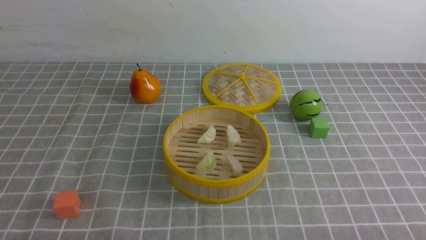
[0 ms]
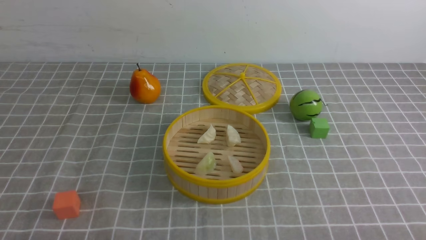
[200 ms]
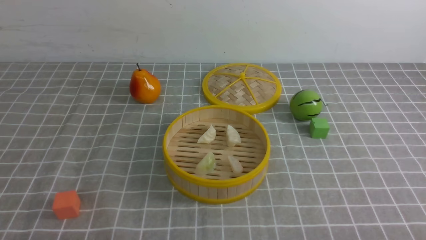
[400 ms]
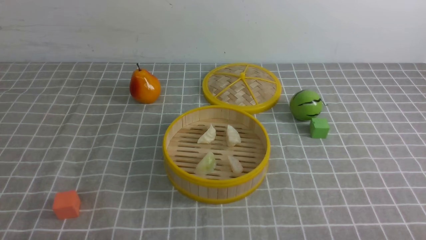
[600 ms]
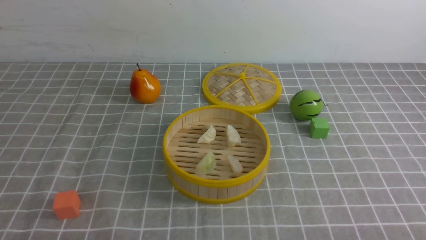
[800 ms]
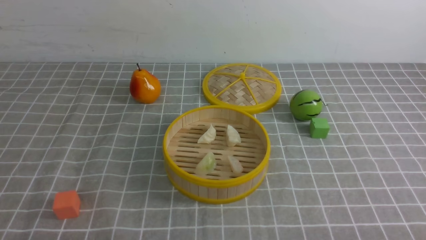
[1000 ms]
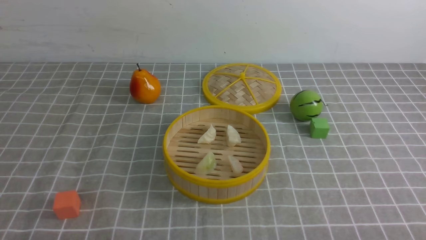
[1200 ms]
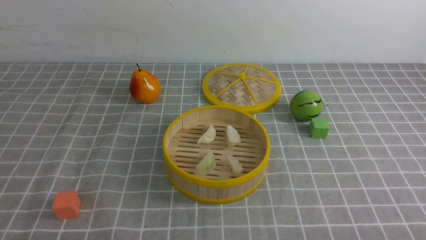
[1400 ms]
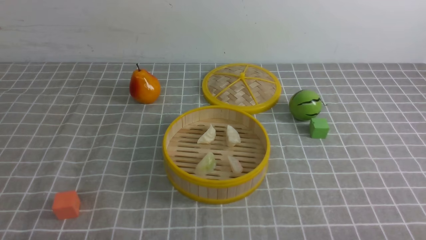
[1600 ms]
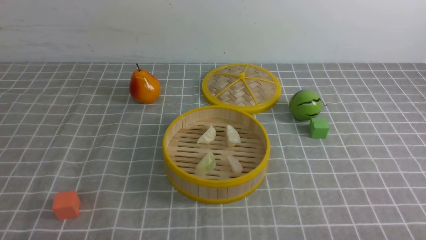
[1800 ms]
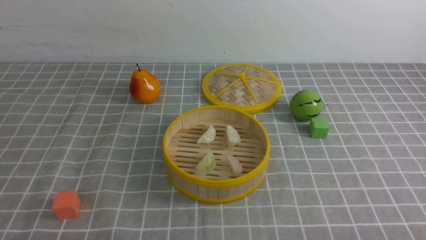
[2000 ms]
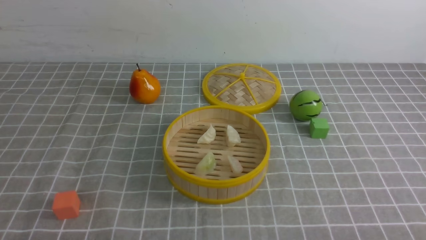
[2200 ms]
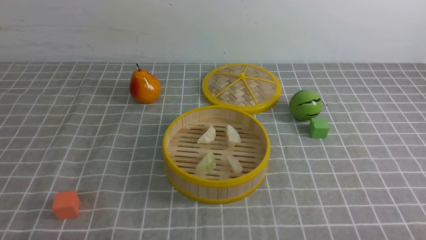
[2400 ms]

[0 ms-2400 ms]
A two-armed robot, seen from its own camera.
Task of the whole recording: put the dumplings into the steamer on the table with the grey tablecloth.
0 ms to 2400 ms: The two grippers keep their place.

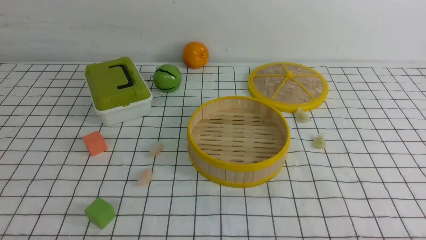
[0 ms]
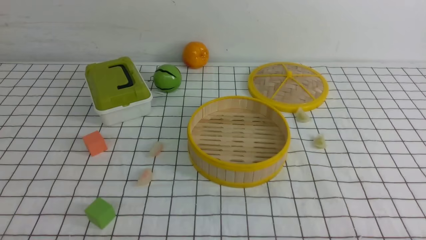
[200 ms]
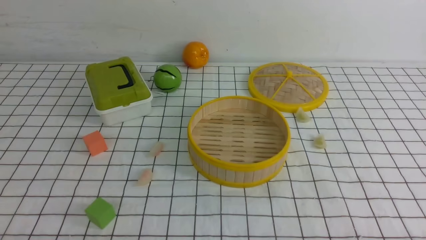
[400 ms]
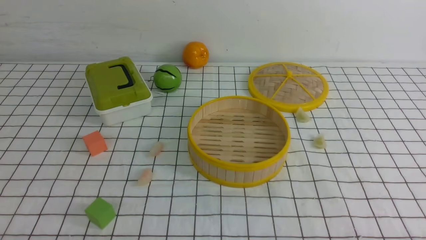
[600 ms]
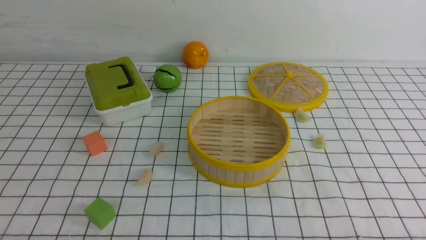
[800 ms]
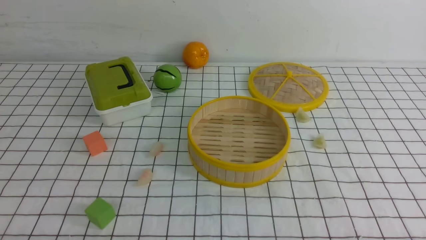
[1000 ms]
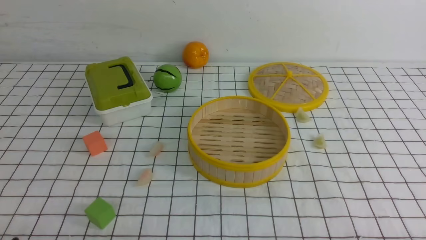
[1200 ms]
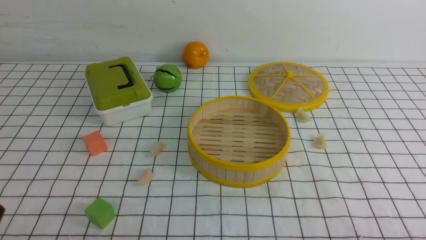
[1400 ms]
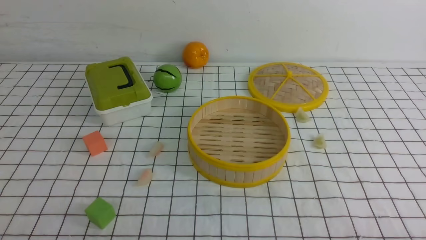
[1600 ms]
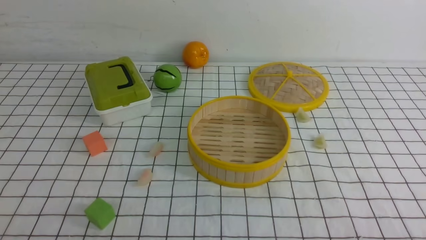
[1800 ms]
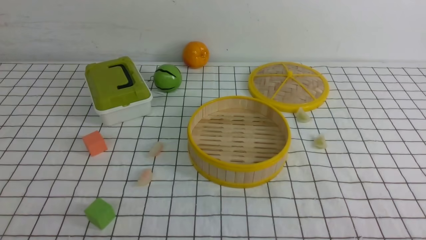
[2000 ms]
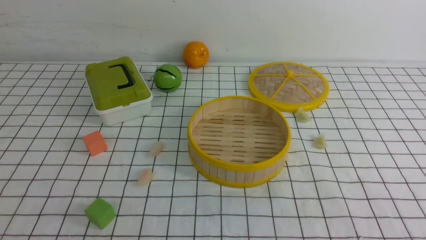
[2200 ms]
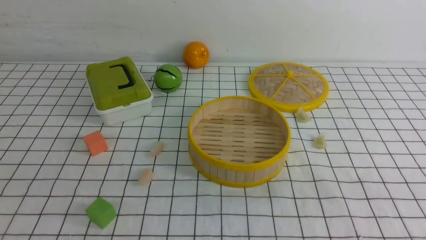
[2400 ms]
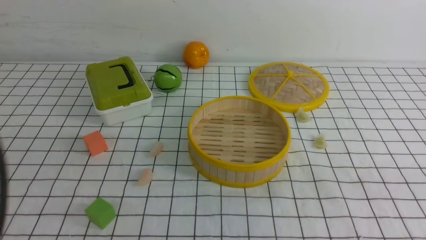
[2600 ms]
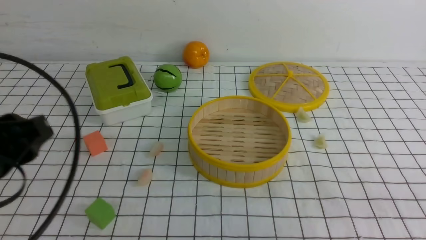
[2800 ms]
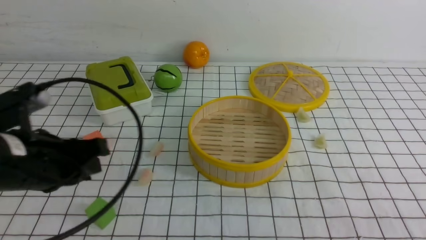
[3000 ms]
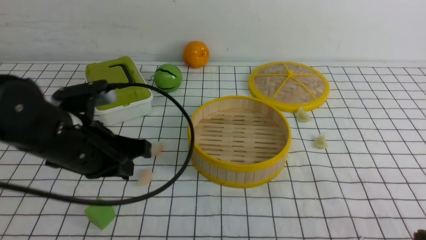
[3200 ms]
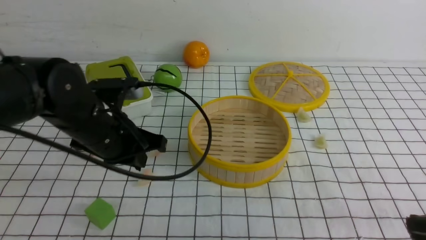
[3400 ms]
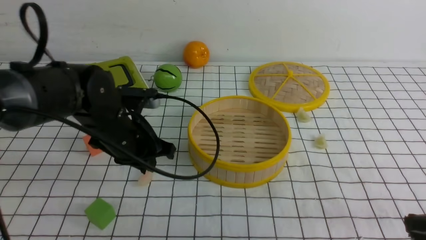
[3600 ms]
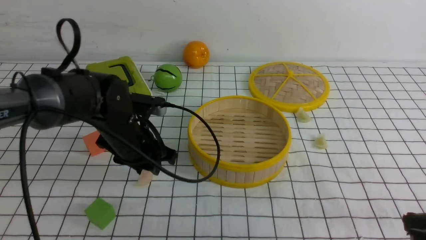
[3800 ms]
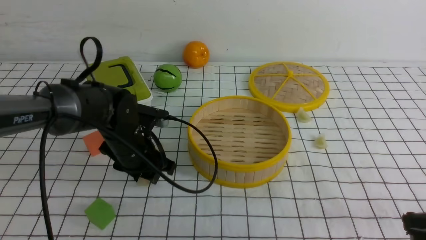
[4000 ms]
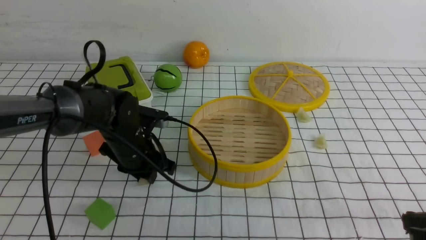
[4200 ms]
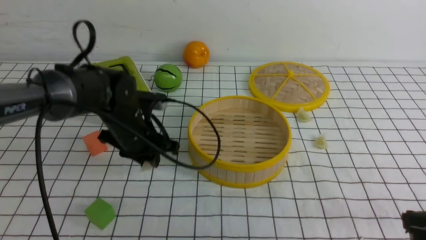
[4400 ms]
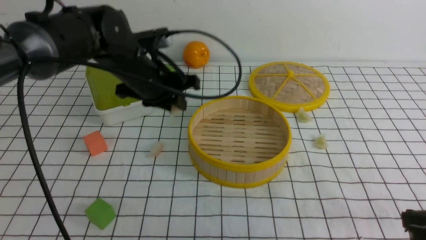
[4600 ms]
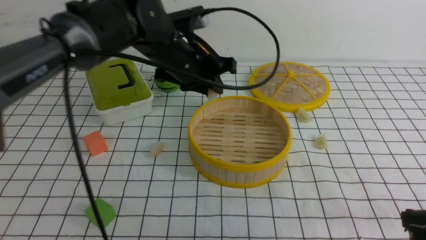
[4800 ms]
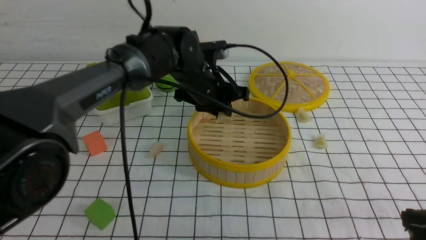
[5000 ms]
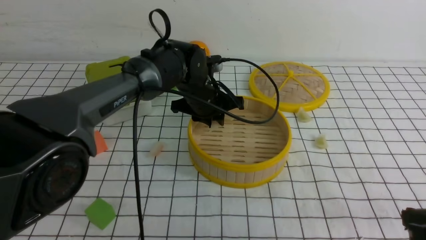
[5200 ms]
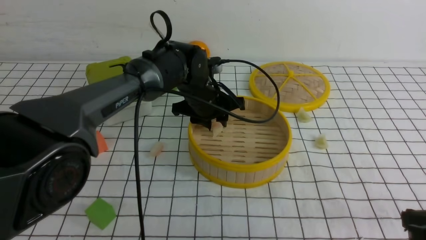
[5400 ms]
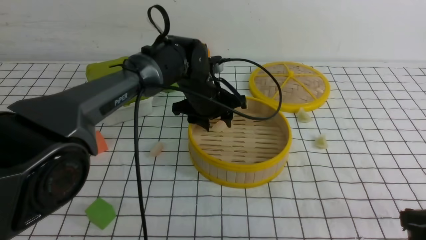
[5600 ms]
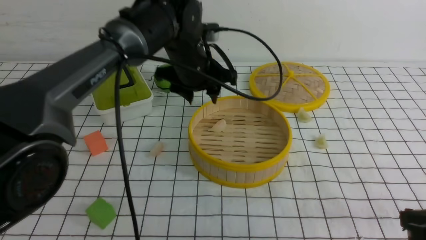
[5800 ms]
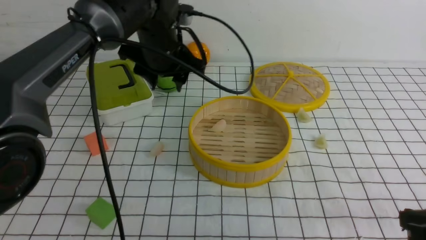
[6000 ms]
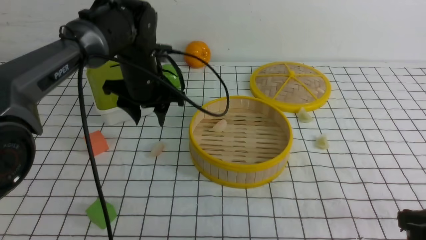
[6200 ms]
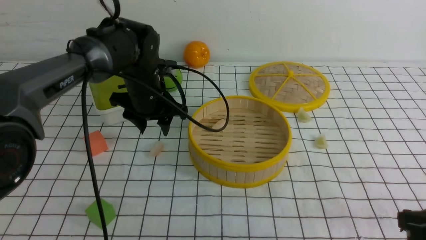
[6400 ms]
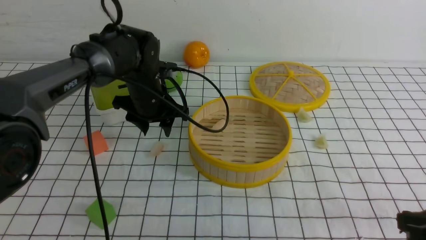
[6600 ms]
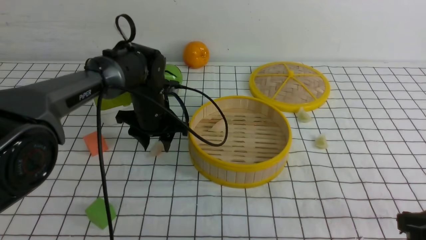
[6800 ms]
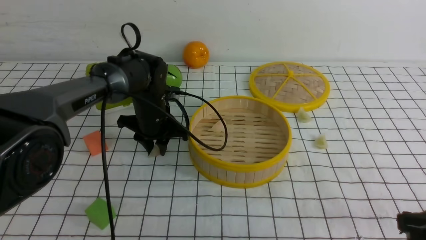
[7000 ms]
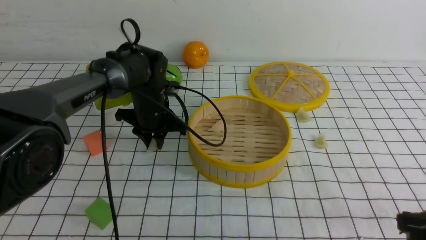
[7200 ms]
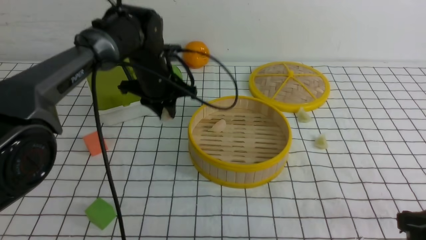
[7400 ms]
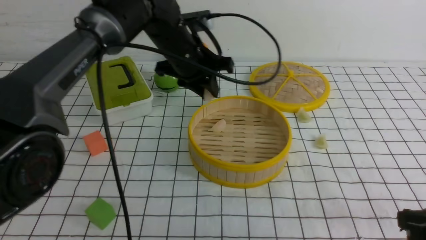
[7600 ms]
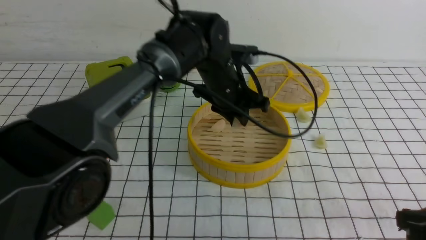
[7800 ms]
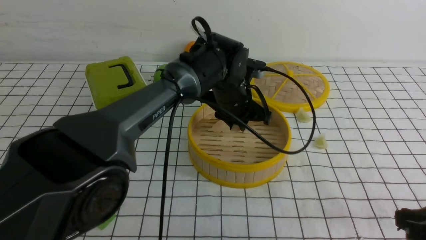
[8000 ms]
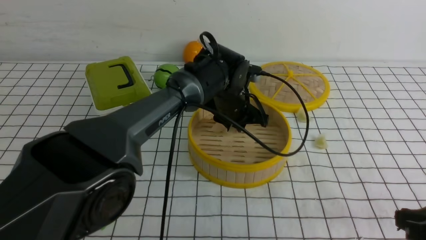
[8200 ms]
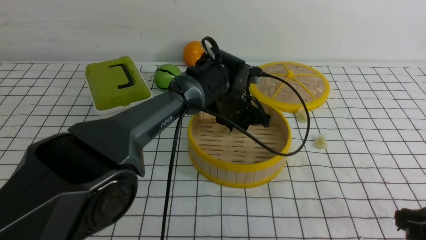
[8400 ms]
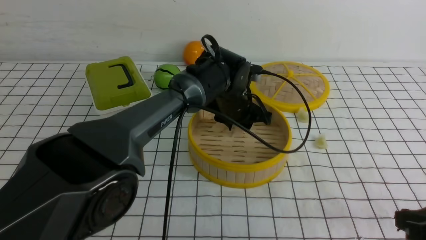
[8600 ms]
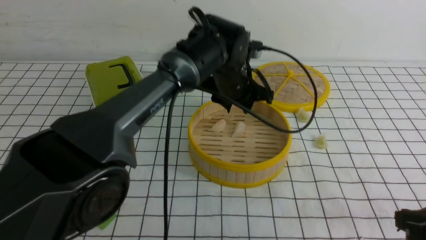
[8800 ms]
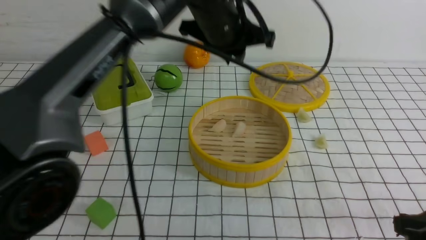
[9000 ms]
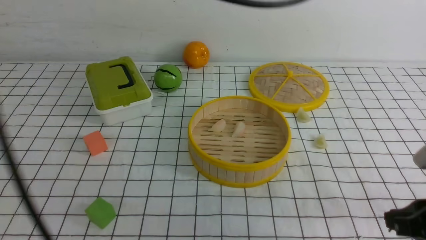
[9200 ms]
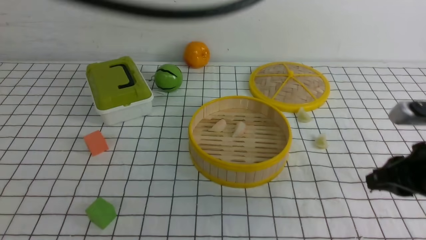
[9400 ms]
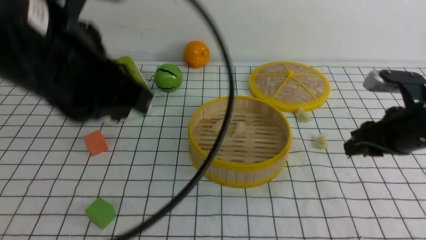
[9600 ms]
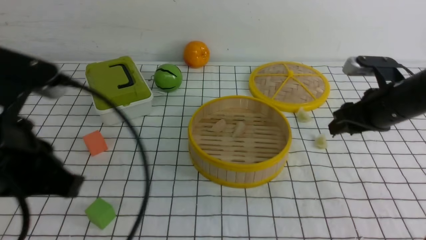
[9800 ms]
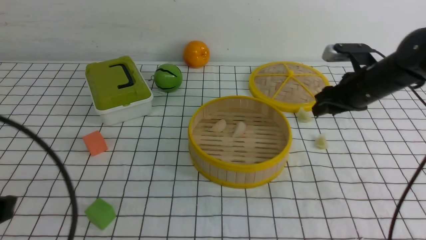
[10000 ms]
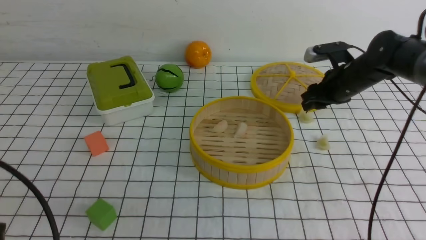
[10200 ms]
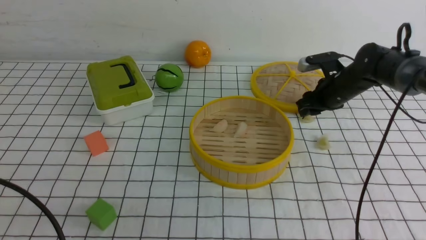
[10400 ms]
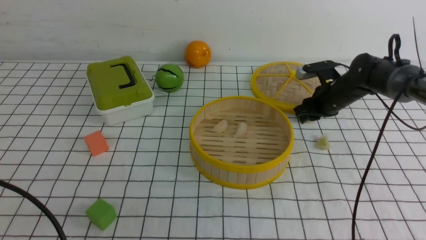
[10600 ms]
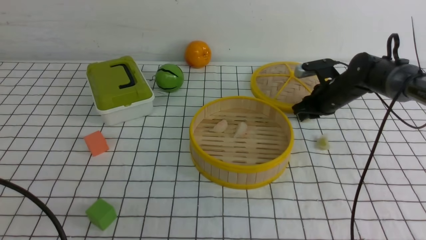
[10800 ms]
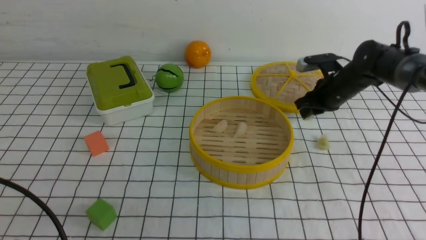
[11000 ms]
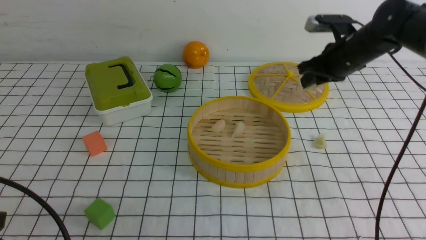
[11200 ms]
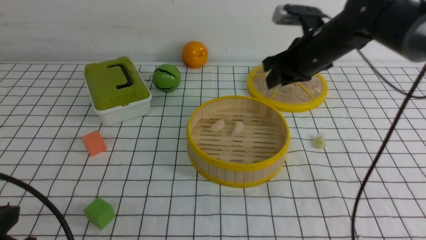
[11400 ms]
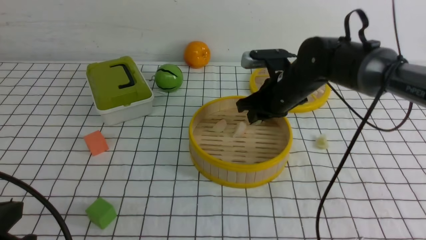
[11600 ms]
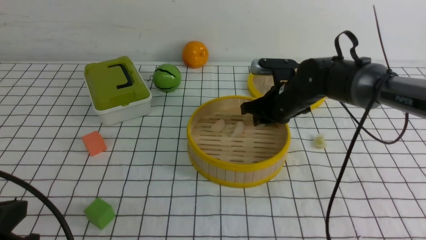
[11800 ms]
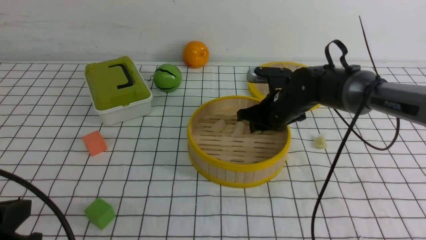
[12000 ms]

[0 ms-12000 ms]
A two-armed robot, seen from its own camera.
Task of the whole recording: put the dumplings into the steamer on the table with the white tablecloth.
Step, 0 ms to 4200 ms: use the left arm to grab a dumpling.
Step, 4400 ms to 5600 ms: use the left arm to put the dumpling into the steamer.
Step, 5800 ms to 7000 ms: use the left arm to grab a dumpling.
Step, 7200 ms to 8800 ms: use the left arm to put the dumpling into the steamer.
Step, 9000 ms to 10600 ms: use the right arm to grab a dumpling.
1600 ms to 3000 ms: The left gripper goes roughly 20 cm forward.
3000 ms to 4400 ms: The left gripper heads forward, to the right and downward, covering about 20 cm.
4400 ms to 6000 ms: The left gripper travels upward and forward by approximately 10 cm, and opens its fingers.
6000 ms to 7600 ms: The left gripper reaches about 10 cm downward, then returns, and closes.
7600 ms to 9000 ms: The left gripper goes roughly 15 cm upward and backward.
9000 ms to 10400 ms: The left gripper is displaced backward, to the left and downward by about 40 cm, and closes up. The right gripper is displaced forward by roughly 35 cm, and opens.
10400 ms to 12000 ms: The right gripper shifts about 15 cm to the left and backward.

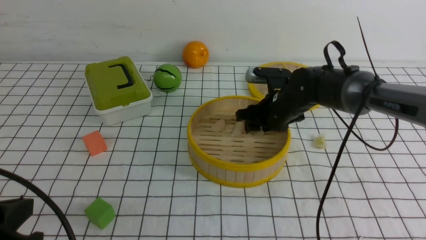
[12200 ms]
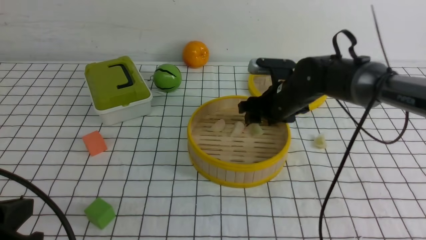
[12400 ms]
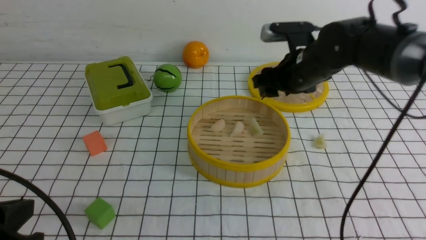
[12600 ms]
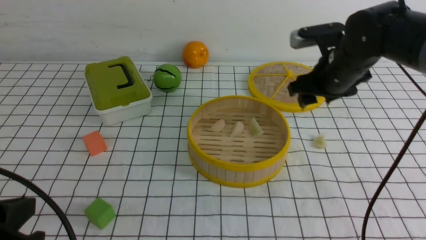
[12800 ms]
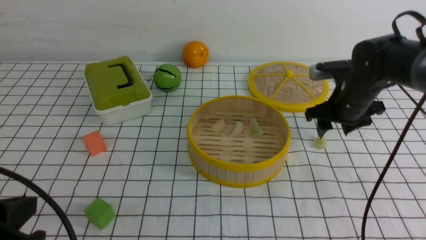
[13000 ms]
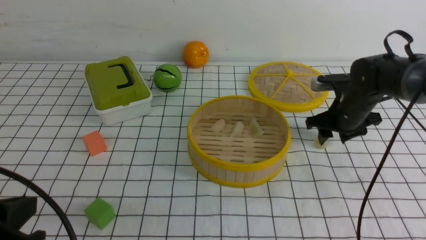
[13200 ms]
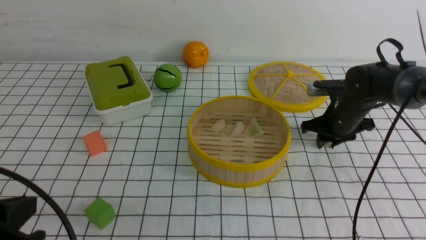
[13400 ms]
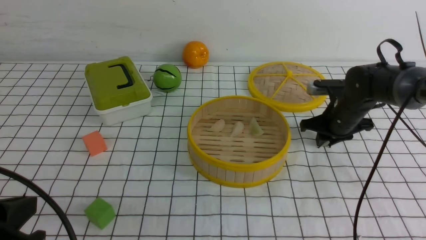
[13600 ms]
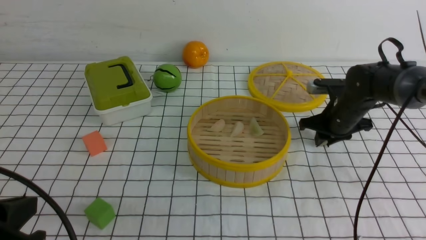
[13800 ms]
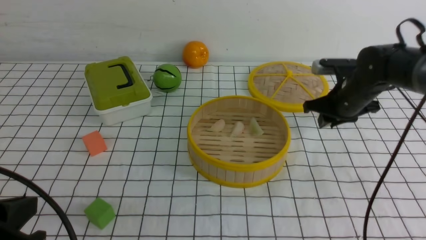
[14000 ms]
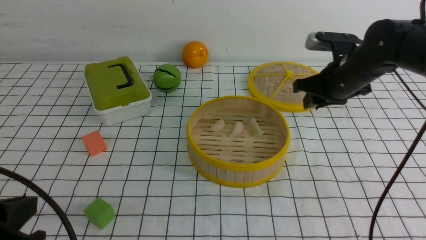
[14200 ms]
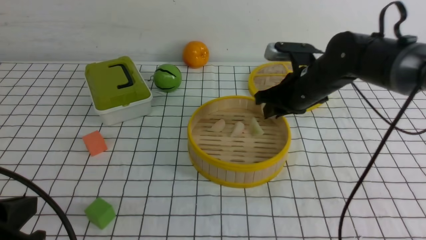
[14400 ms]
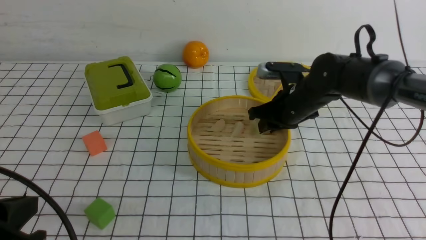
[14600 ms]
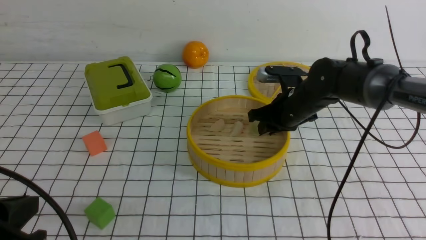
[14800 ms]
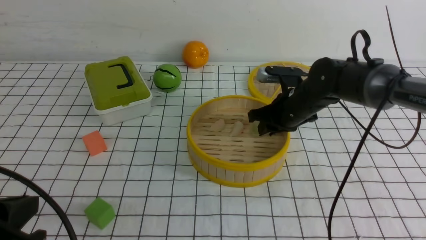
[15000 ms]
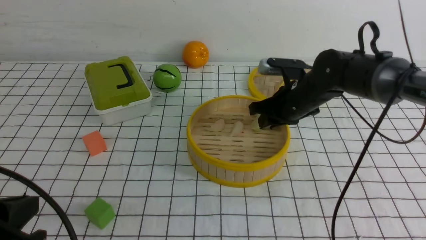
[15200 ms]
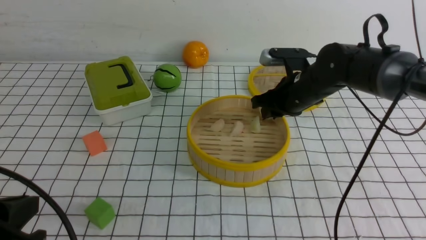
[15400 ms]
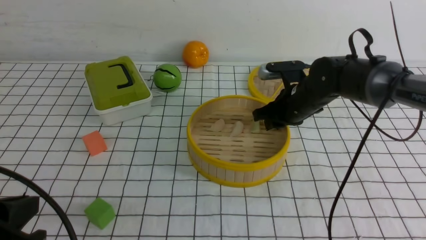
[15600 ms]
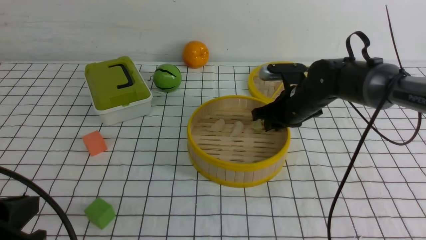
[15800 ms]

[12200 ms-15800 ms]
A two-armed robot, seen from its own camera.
Task of the whole recording: put the dumplings into the steamer on the table with the white tablecloth.
Step, 12600 ms to 13600 ms: use the right arm to grab a dumpling.
12200 ms to 14000 ms: The right gripper moves to the right, roughly 10 cm, and closes.
14000 ms to 15800 ms: The right gripper is displaced to the left by approximately 10 cm.
